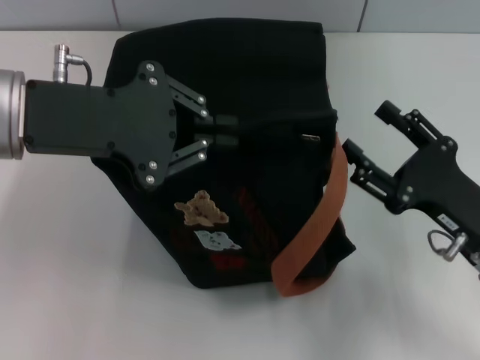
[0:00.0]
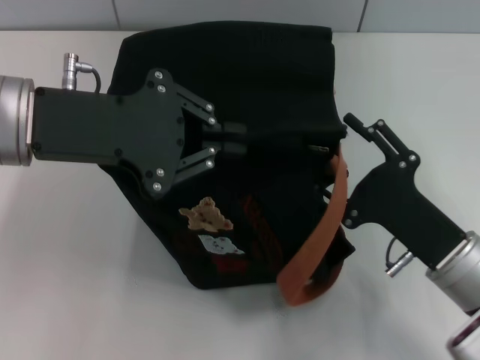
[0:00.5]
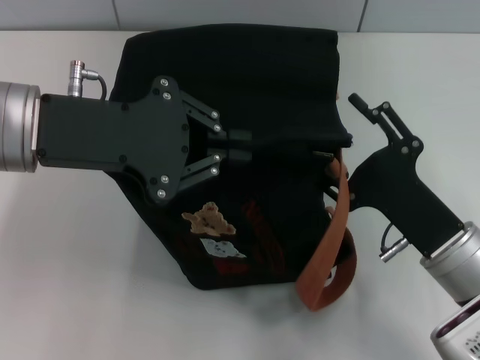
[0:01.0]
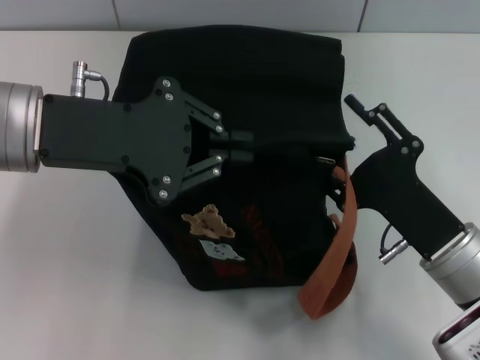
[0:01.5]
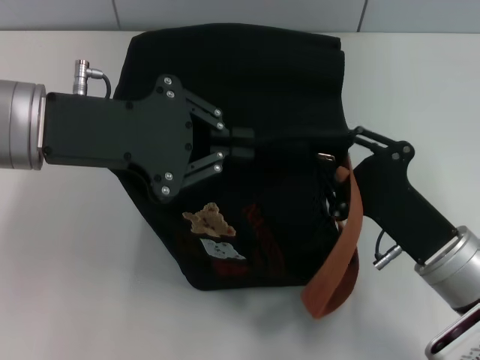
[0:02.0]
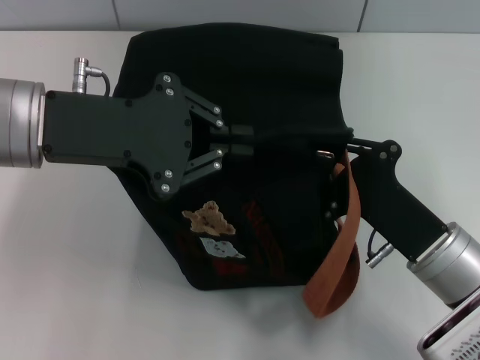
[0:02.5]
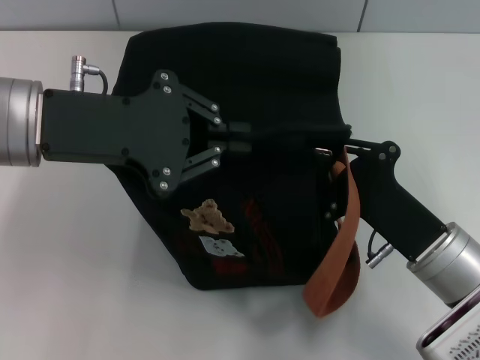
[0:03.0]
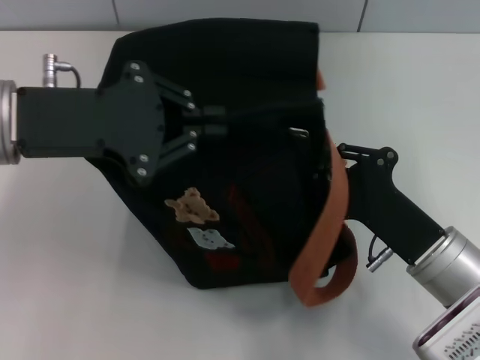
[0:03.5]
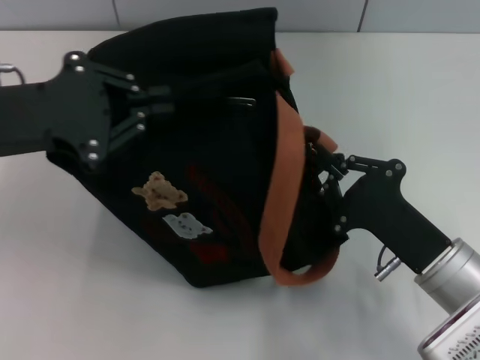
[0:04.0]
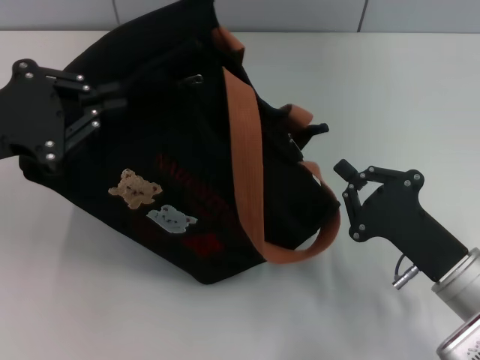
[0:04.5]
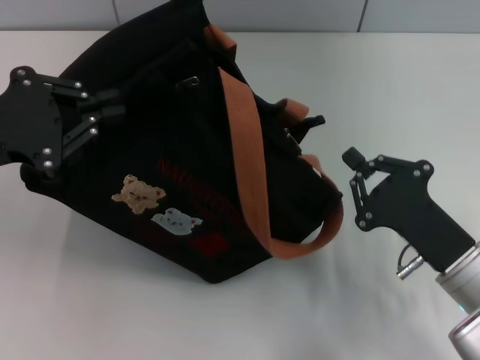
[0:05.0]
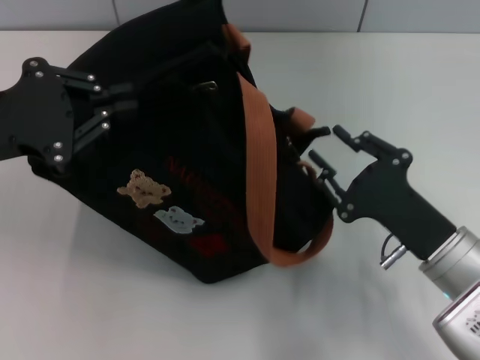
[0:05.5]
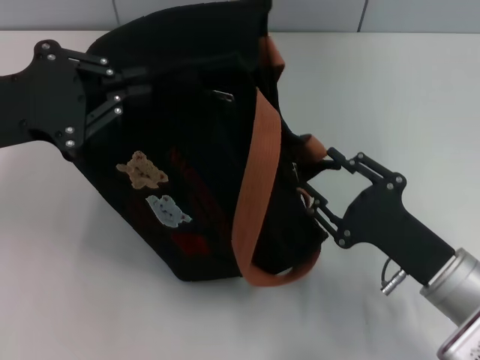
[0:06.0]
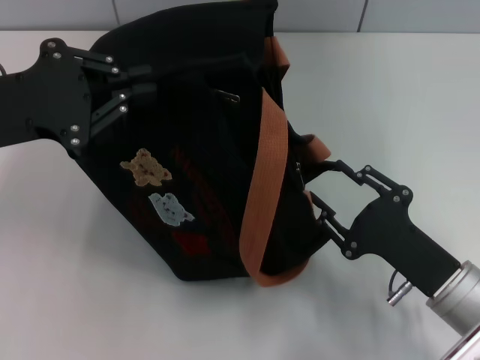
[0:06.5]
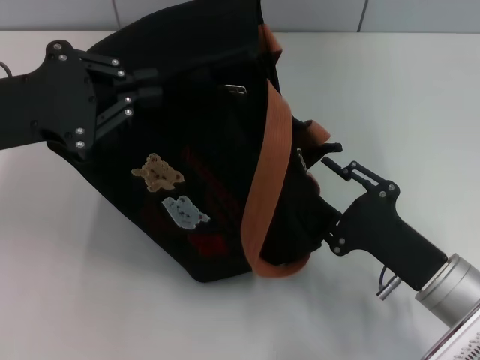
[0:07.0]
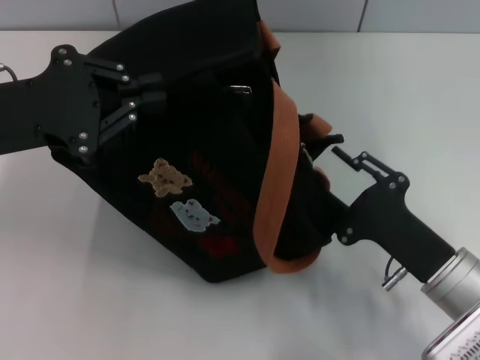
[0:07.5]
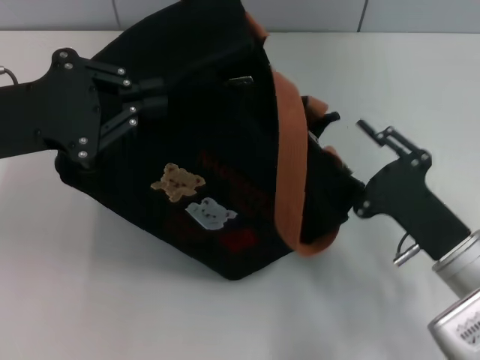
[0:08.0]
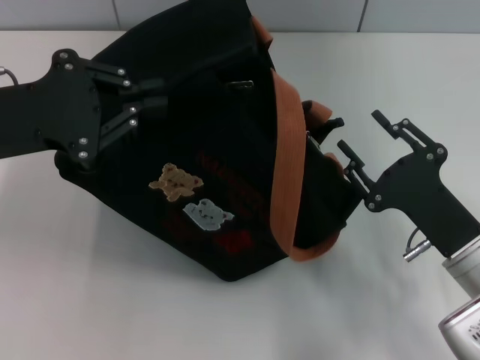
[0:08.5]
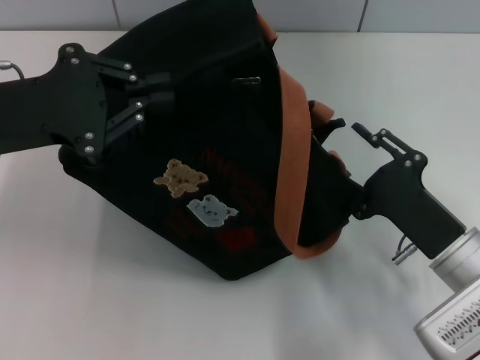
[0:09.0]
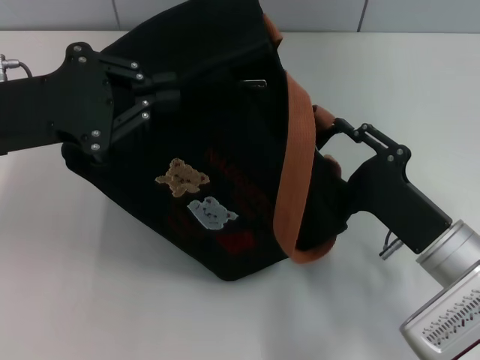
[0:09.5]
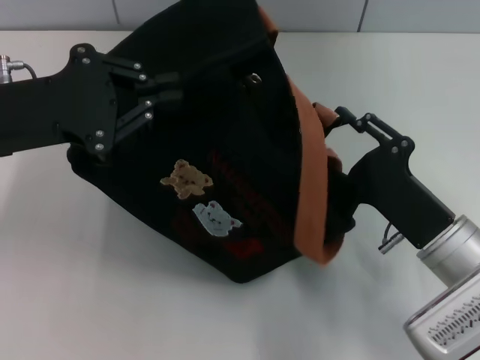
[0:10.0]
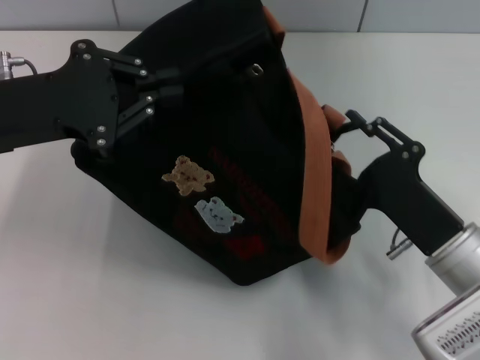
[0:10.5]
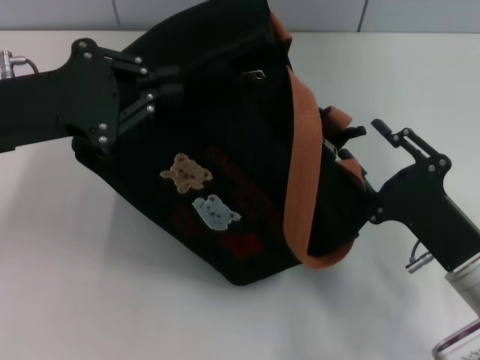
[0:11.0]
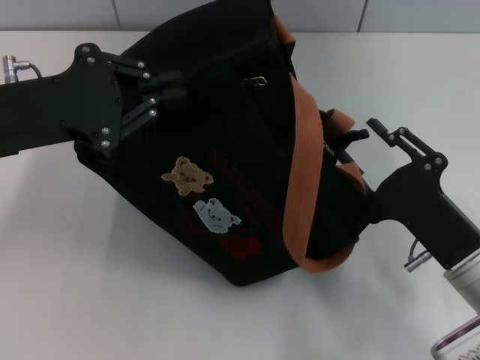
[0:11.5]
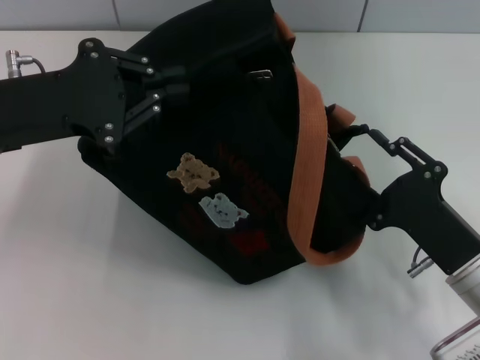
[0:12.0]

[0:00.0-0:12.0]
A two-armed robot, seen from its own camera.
0:00.0 to 0:02.0: The right gripper moves to the left, about 5 cm, and closes.
0:02.0 to 0:04.0: The left gripper is displaced to the left by approximately 5 cm. The right gripper closes.
0:04.0 to 0:06.0: The right gripper opens.
0:08.0 to 0:12.0: There are only small adjustments of the grippers.

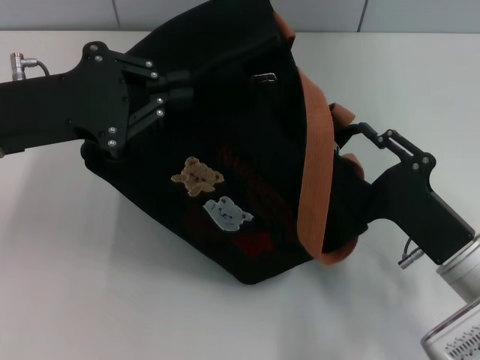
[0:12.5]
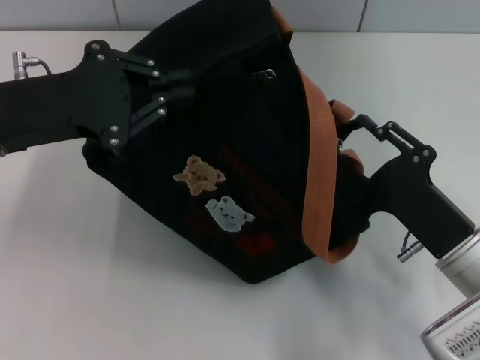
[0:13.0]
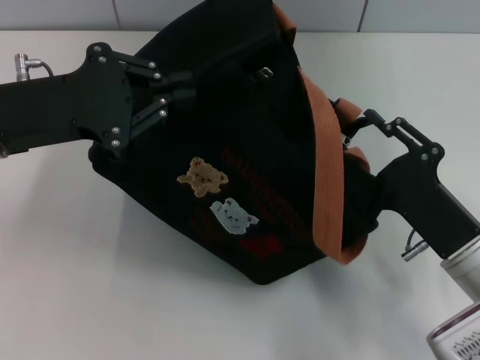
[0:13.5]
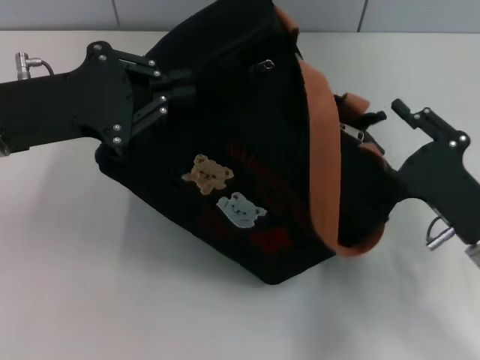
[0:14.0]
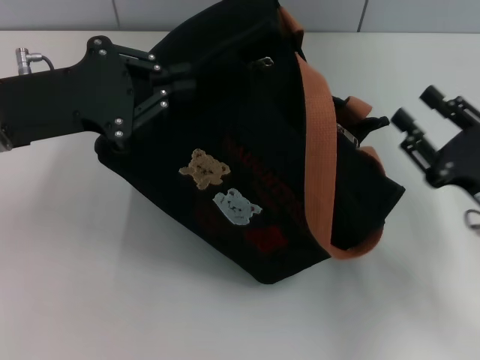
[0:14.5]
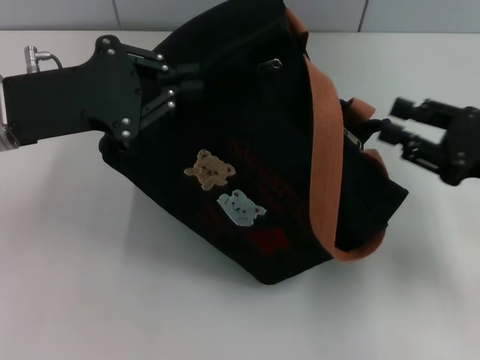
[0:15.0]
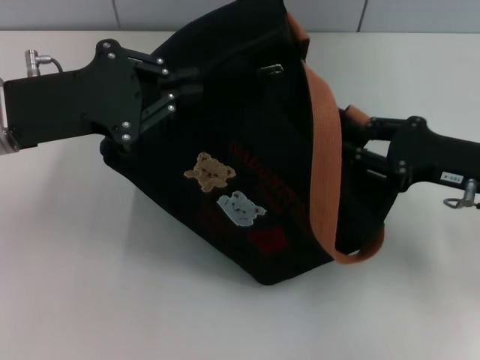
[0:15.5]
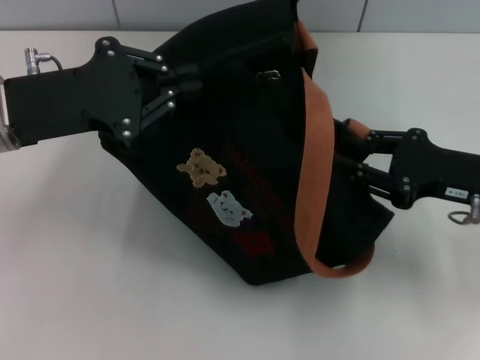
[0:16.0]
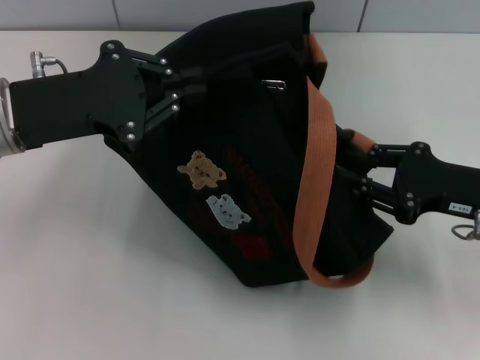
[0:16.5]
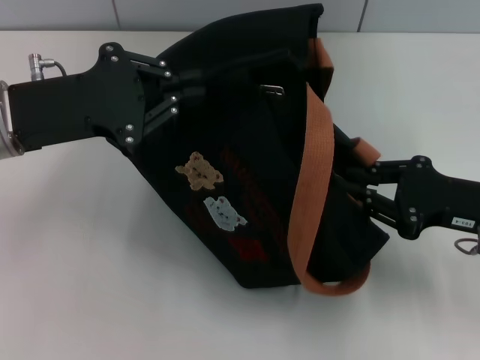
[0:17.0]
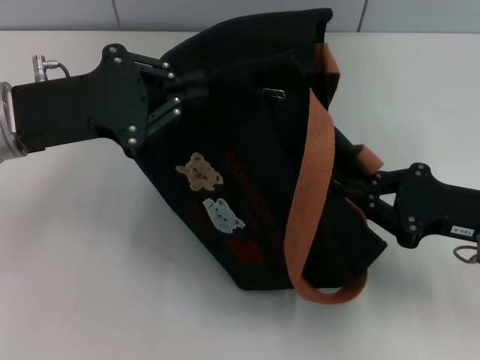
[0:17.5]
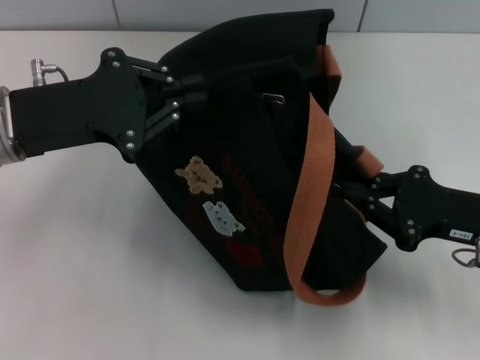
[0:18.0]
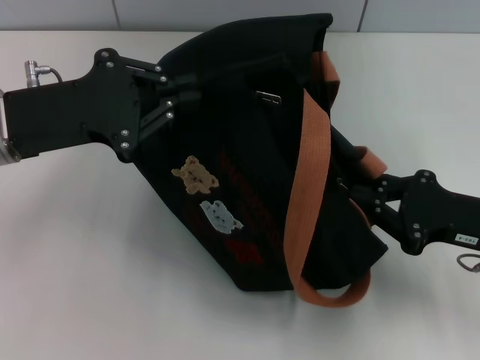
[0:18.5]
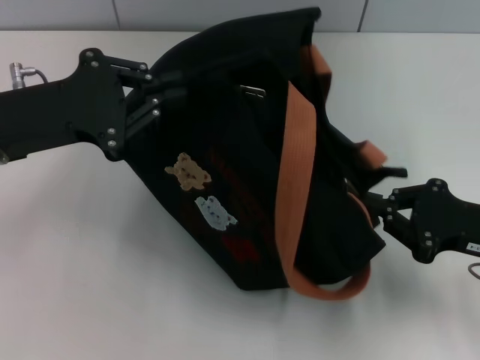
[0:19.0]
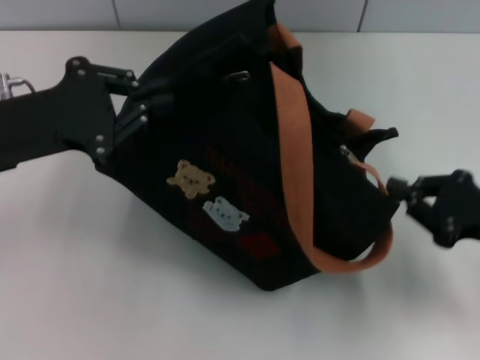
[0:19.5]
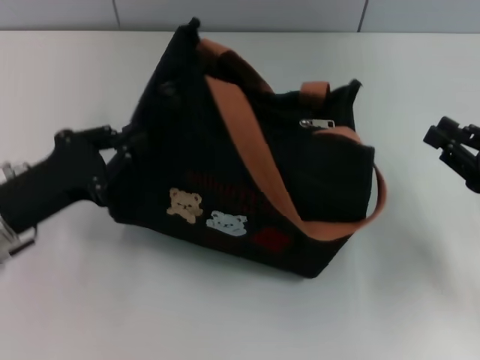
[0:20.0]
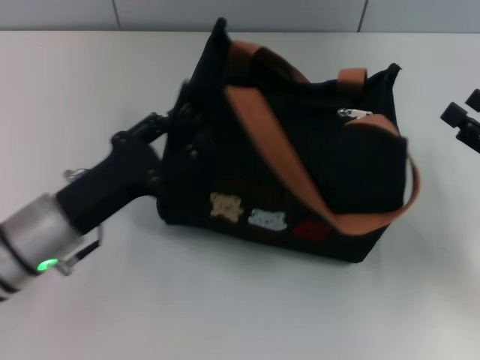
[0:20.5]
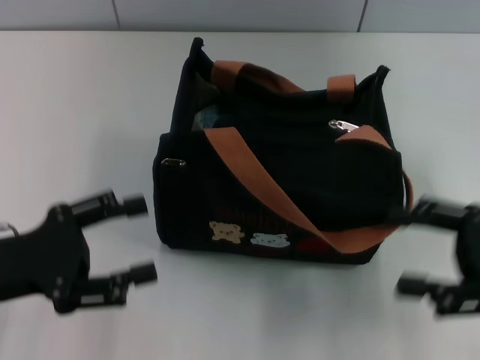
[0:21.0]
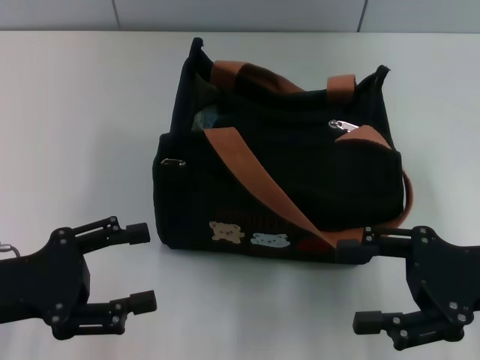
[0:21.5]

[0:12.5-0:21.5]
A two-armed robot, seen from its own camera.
Step, 0:12.5 to 0:19.5: Pull open the zipper with your right hand.
Step, 0:20.0 to 0:20.5: Grab the bag with your left hand.
0:12.5 to 0:14.5: The right gripper travels to the right by about 5 cm.
0:17.0 to 0:19.5: The grippers make only small movements.
0:19.5 to 0:21.5: The left gripper travels backward and downward by approximately 10 cm, and opens up. Meanwhile the right gripper changes place by about 5 cm, and opens.

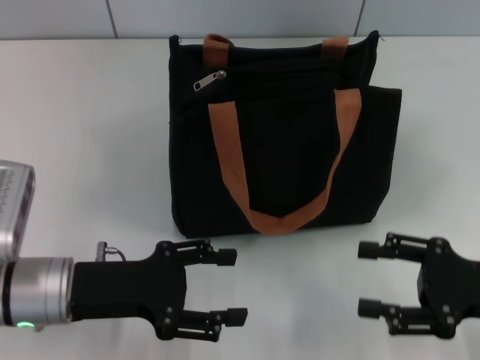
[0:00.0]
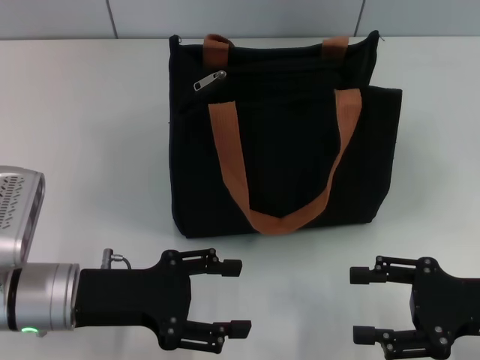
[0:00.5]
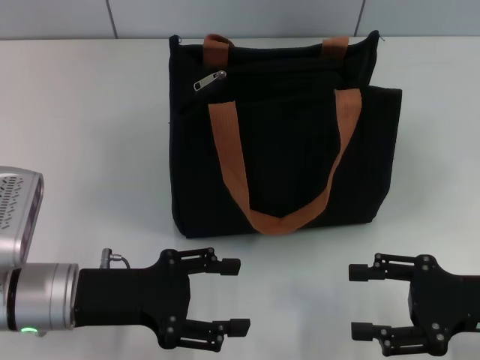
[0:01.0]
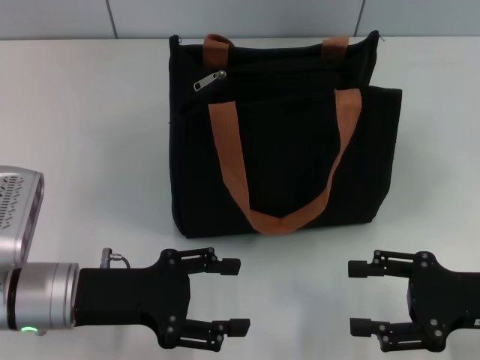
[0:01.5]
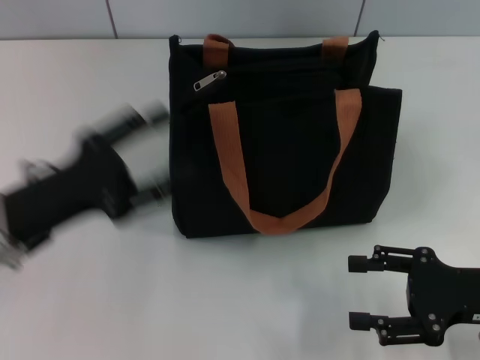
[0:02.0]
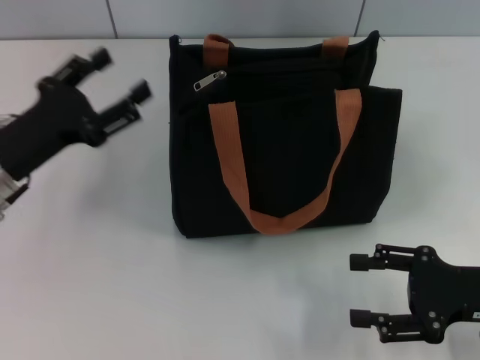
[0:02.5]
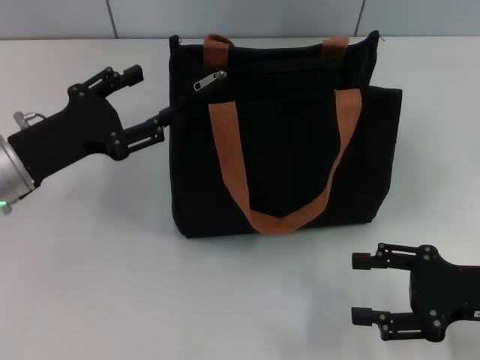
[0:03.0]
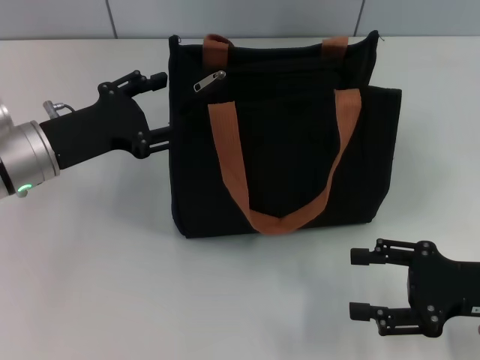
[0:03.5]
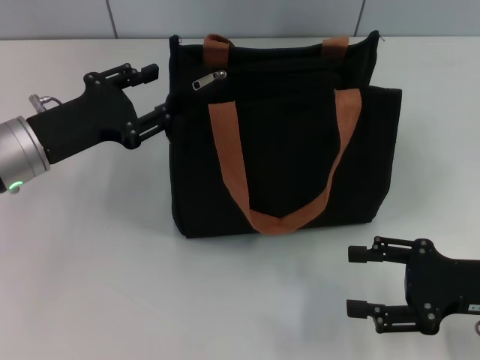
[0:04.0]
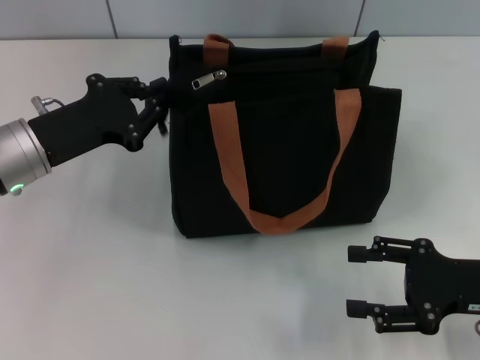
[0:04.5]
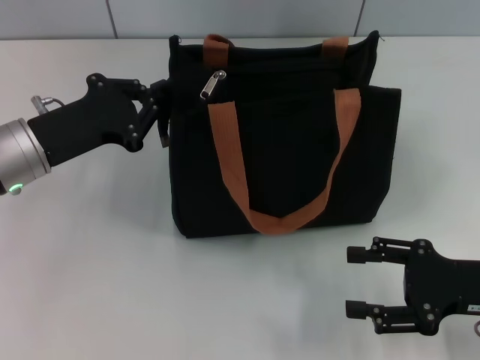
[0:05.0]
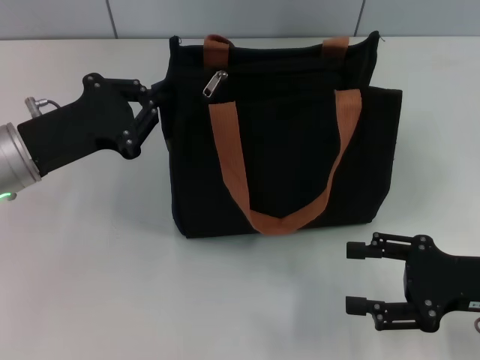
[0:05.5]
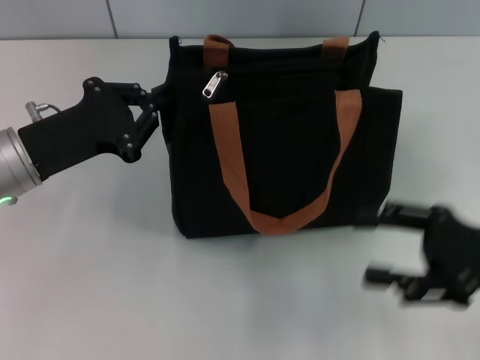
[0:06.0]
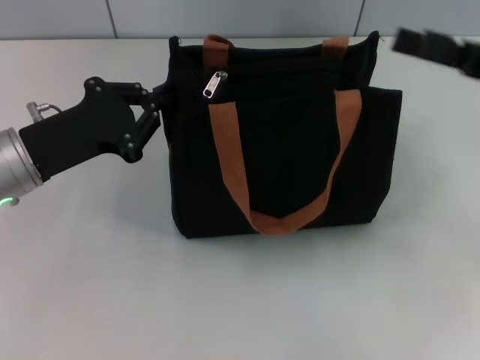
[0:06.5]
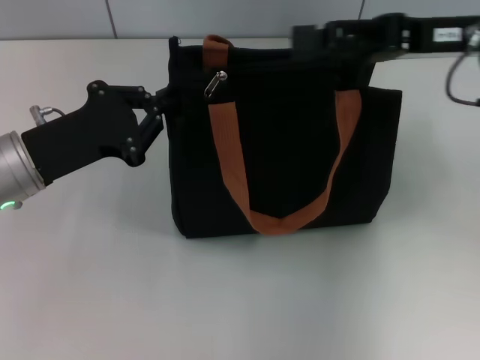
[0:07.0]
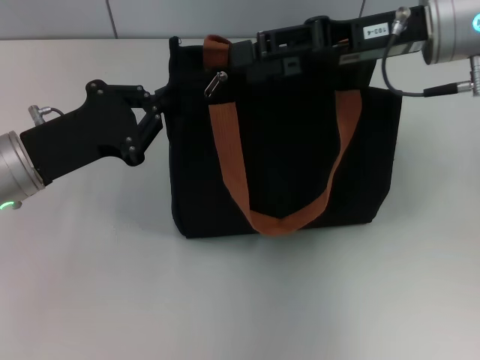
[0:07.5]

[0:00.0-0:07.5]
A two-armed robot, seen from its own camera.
0:02.0 to 0:04.0: The left gripper moves forward, roughly 10 cm.
0:04.0 to 0:05.5: The left gripper closes up.
0:05.5 to 0:07.5: The right gripper is displaced forward, upward and to the left by roughly 25 cm.
